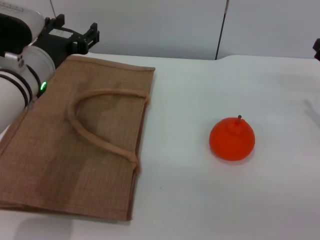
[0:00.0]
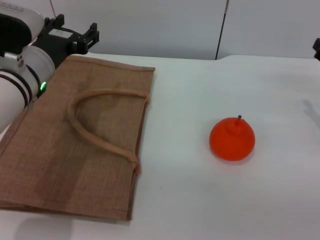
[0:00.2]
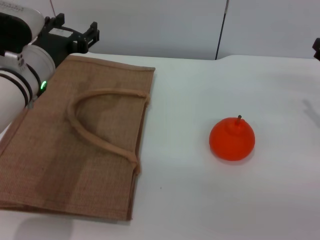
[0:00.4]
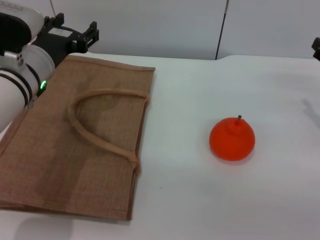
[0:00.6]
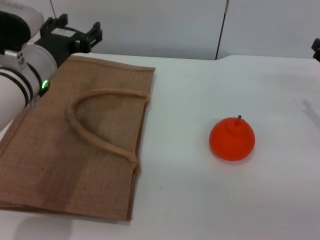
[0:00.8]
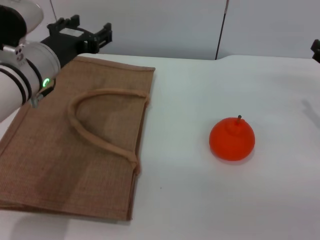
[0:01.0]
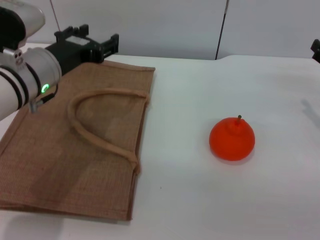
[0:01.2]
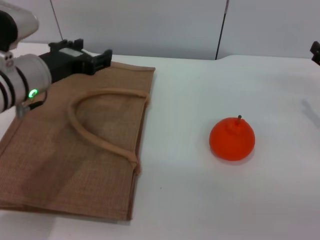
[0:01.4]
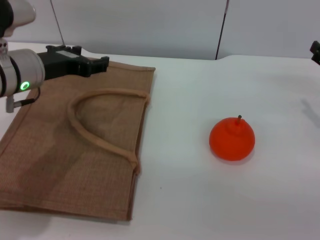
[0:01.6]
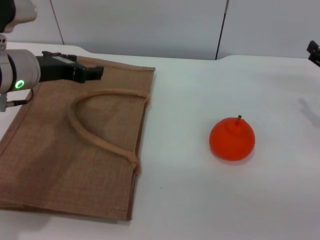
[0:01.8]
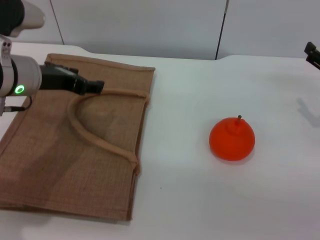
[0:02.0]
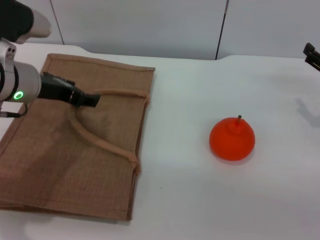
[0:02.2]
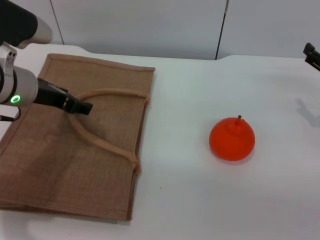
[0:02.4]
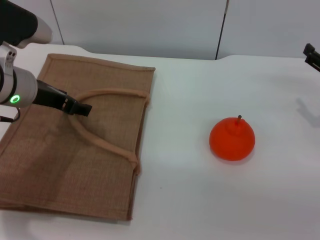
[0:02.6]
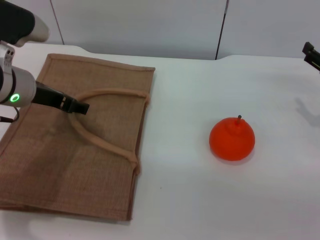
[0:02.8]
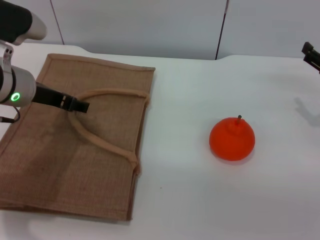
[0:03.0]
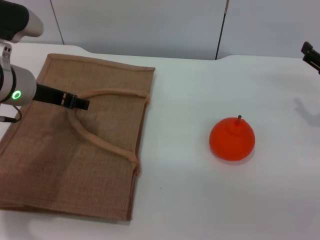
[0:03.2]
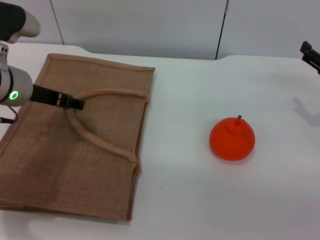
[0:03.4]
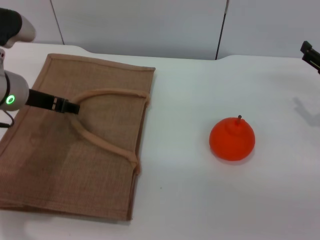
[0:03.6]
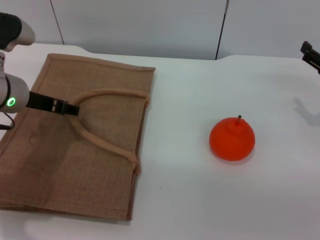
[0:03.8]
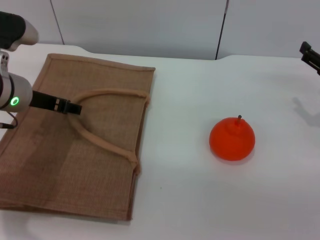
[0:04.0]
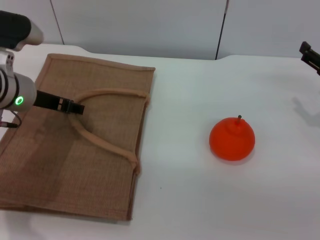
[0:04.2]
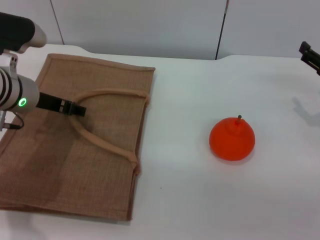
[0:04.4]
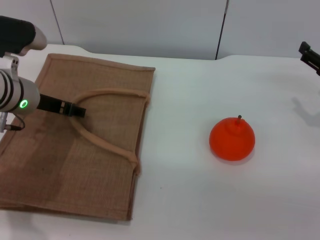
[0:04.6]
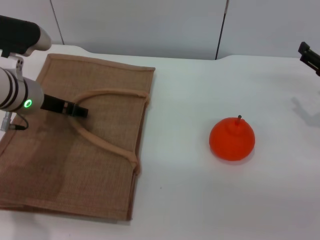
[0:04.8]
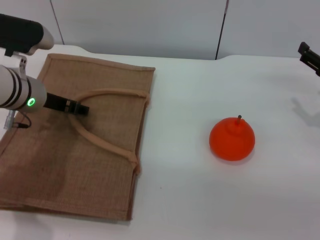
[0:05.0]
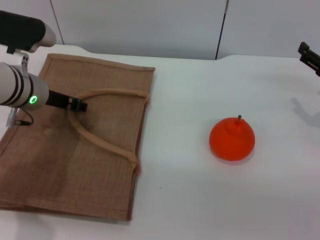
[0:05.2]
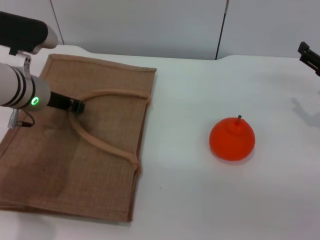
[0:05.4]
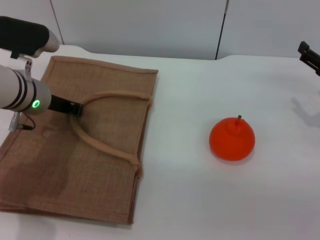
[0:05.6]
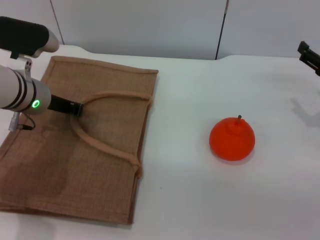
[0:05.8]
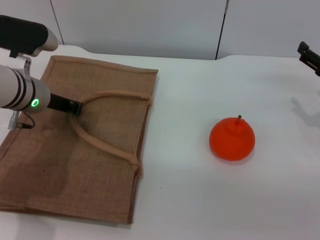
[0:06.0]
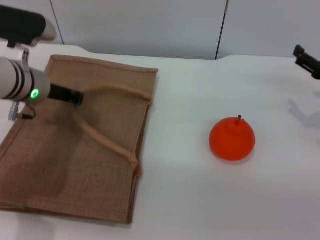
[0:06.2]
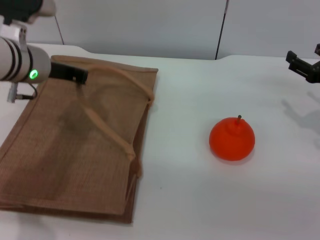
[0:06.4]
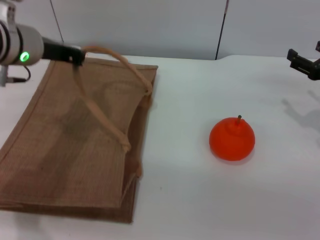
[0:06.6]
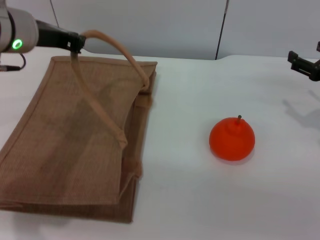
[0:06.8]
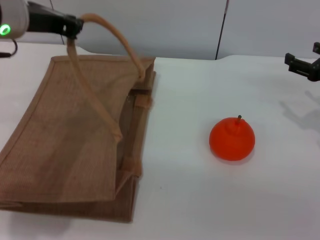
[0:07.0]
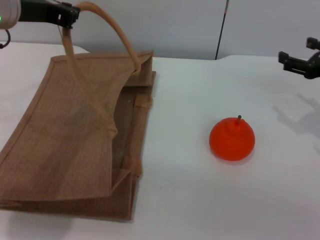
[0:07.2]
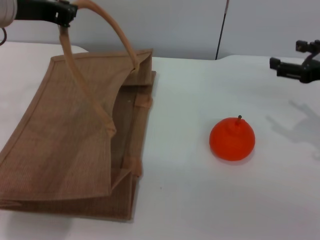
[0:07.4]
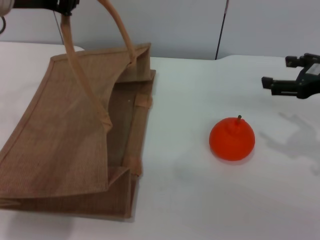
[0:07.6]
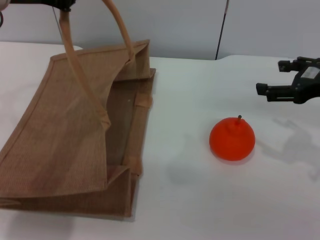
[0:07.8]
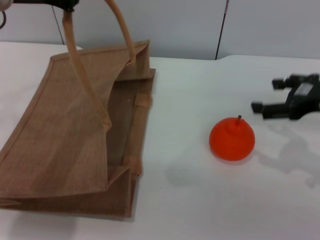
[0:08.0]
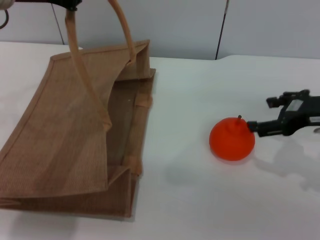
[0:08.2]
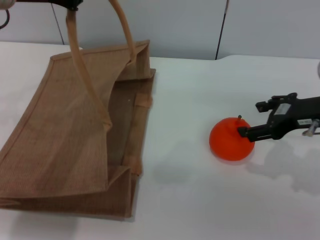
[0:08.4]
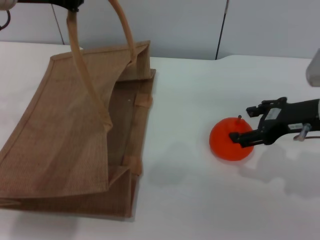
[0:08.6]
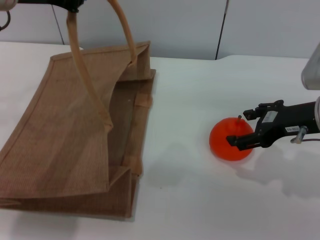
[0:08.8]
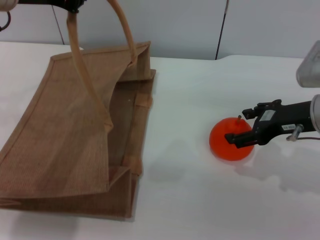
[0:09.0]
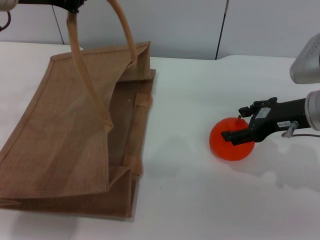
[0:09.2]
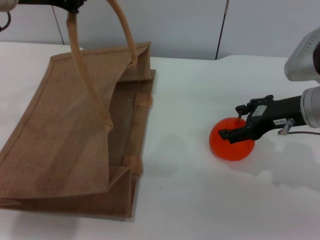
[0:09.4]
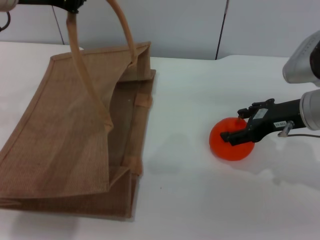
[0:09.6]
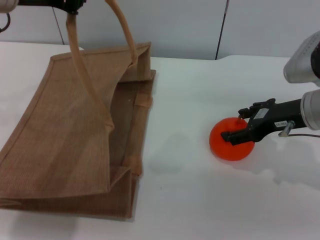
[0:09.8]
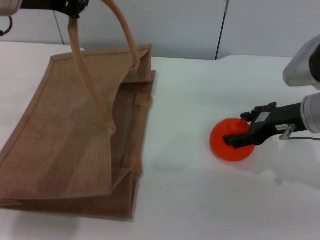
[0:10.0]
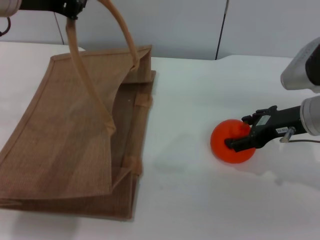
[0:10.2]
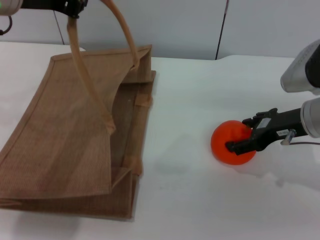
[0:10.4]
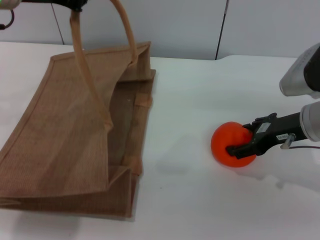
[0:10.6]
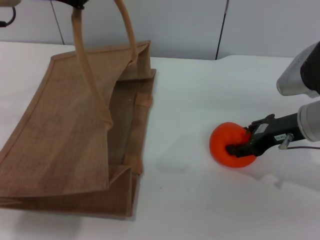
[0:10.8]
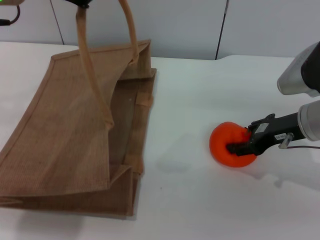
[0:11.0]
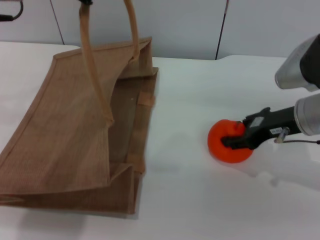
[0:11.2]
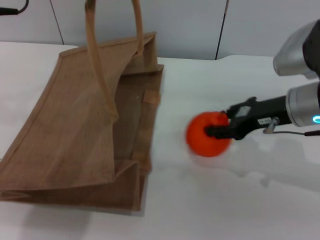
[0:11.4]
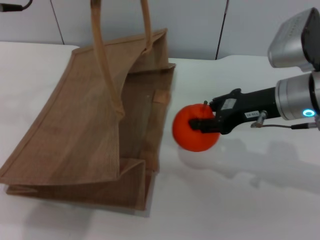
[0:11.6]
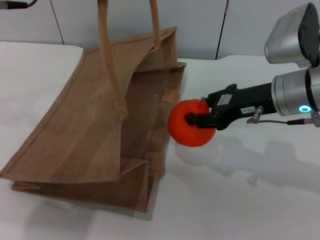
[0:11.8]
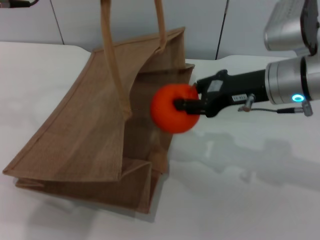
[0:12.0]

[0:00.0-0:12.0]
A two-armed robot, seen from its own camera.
Task of the whole recording: pick up the orange from the table and place it in the brown handbag.
Step, 0:00.0 to 0:07.2: Lift the woven bag with the left gripper to open it.
Step, 0:07.4 to 0:11.2: Pick up the orange with the right gripper.
0:03.0 to 0:04.4: The grippers move only a little.
0:04.4 to 0:06.0: The left gripper closes up.
0:06.0 to 0:07.6: The right gripper moves upward, roughly 10 cm; the left gripper shifts approximately 15 cm upward.
0:07.6 to 0:09.0: The right gripper travels to the left by approximately 5 cm.
0:09.0 to 0:10.4: The grippers move only a little.
0:10.4 to 0:12.0: The right gripper is displaced to the left by some 5 cm, and closes its fingers.

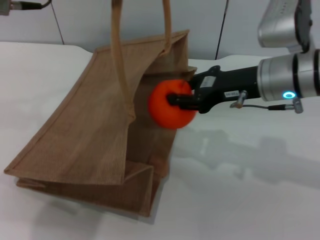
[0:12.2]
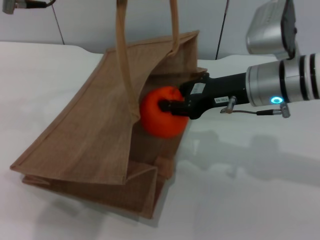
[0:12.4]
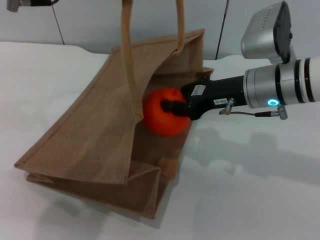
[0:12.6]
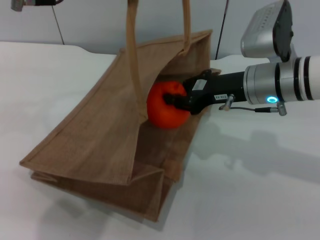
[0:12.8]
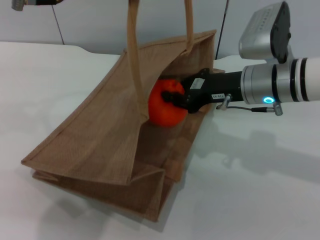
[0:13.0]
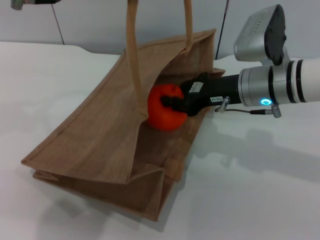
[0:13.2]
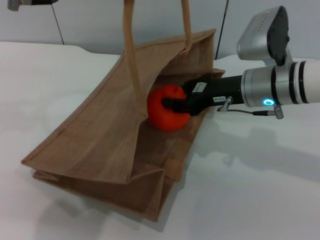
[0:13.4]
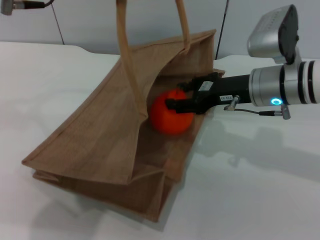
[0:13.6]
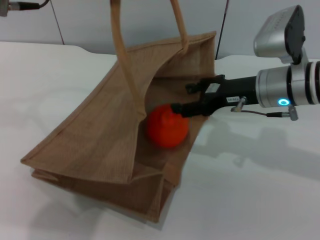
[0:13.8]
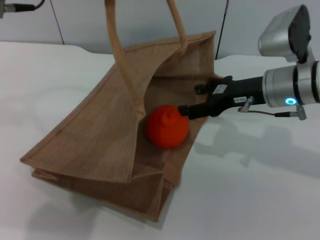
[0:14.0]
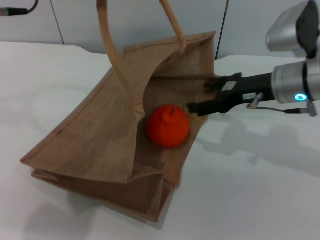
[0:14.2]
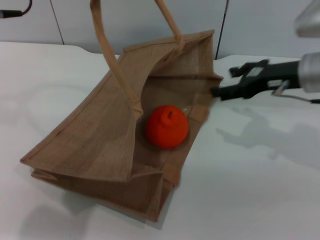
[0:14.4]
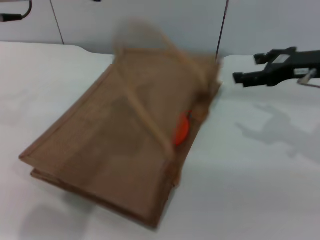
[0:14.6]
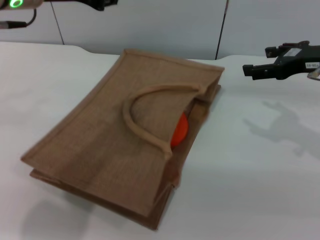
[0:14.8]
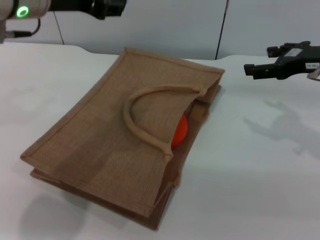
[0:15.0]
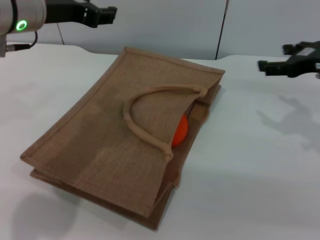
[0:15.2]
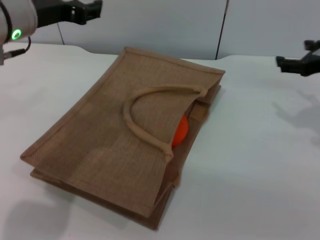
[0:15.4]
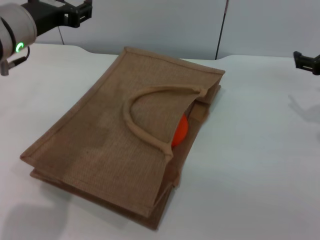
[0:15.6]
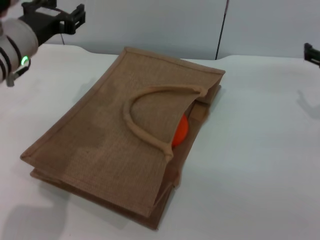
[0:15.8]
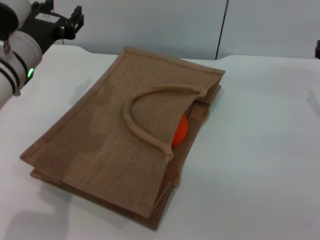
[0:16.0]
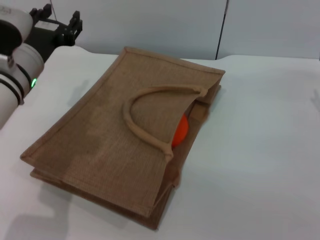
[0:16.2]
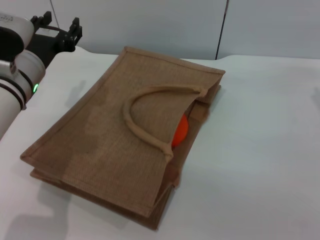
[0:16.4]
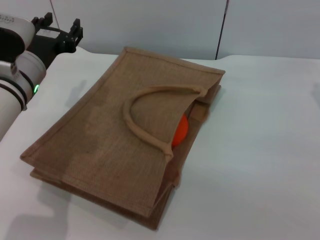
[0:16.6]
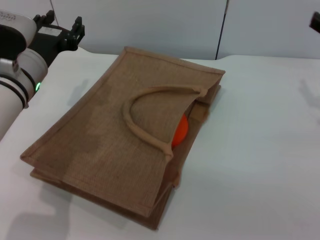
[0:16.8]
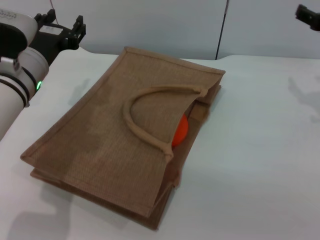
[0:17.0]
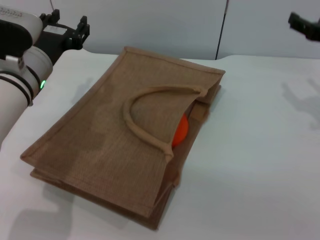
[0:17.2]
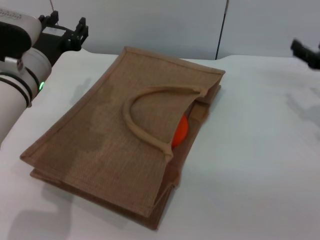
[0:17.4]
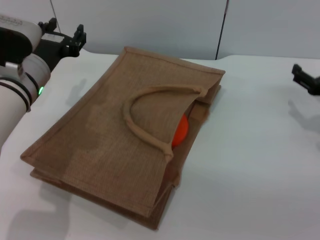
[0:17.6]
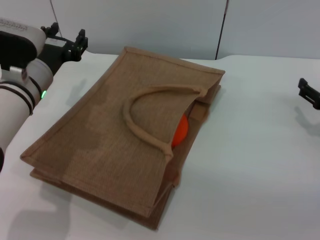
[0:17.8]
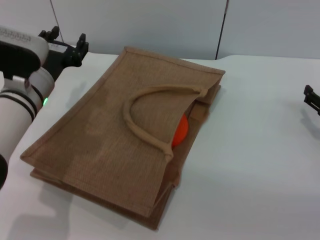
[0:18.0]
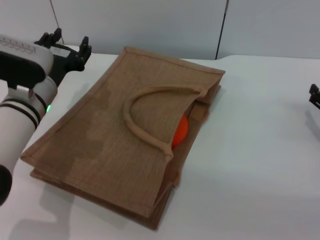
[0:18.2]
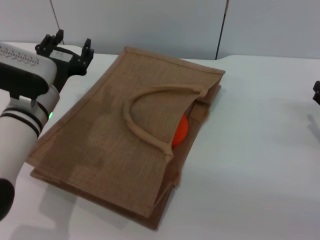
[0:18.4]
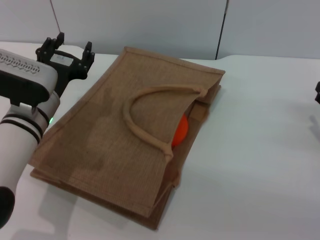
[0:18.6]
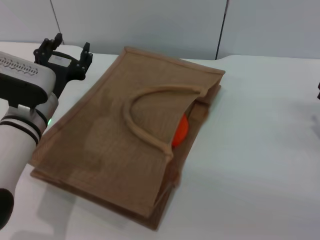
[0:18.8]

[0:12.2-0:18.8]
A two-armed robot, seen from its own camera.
Task of the whole recording: pick up the orange from the table and place it in the brown handbag.
Step, 0:12.2 to 0:14.0: Place the orange into the woven bag with the right gripper.
Step, 0:14.2 to 0:15.0: Lower the woven bag with the left gripper to close it.
0:12.2 to 0:13.8: The right gripper opens its fingers.
0:13.8 to 0:15.4: The right gripper heads to the right, covering some 10 cm; the left gripper goes roughly 10 cm downward, and opens up.
0:15.4 to 0:17.2: The left gripper goes approximately 10 cm downward.
0:17.2 to 0:18.8: The right gripper shifts about 15 cm downward and backward. The left gripper moves roughly 5 cm.

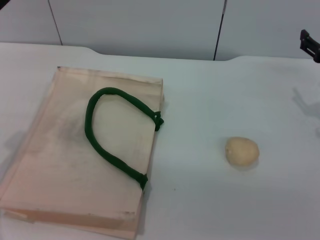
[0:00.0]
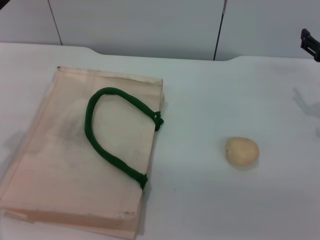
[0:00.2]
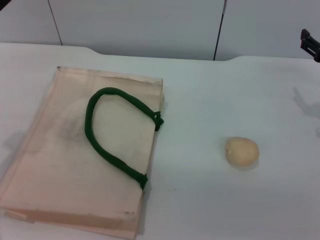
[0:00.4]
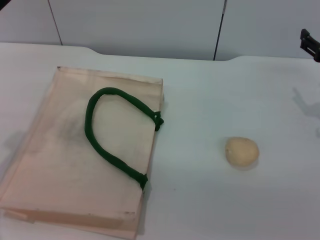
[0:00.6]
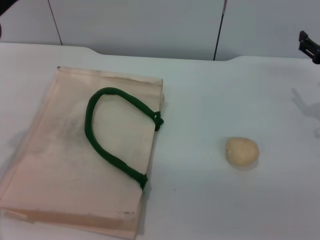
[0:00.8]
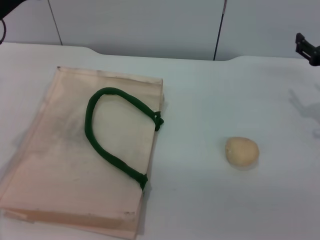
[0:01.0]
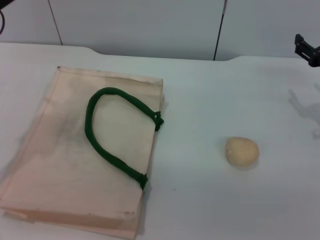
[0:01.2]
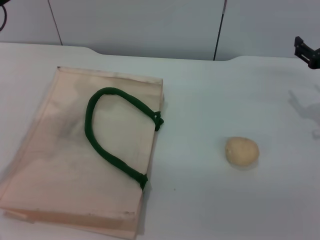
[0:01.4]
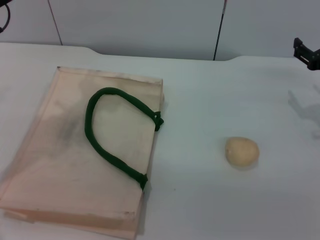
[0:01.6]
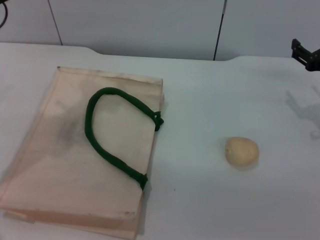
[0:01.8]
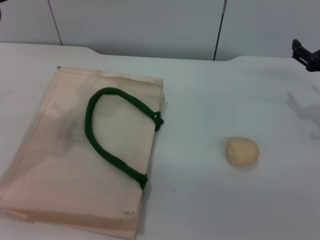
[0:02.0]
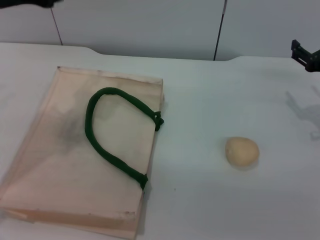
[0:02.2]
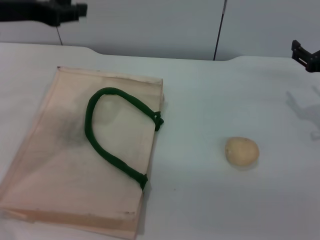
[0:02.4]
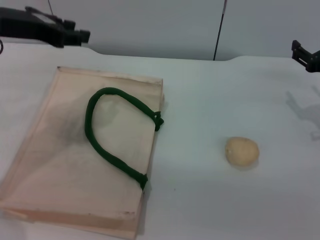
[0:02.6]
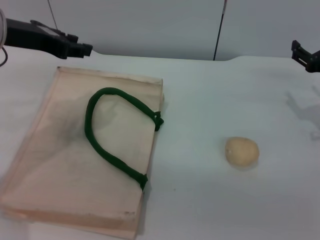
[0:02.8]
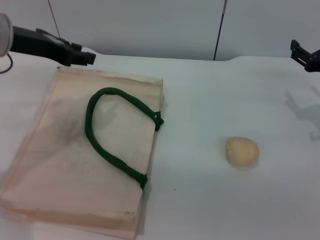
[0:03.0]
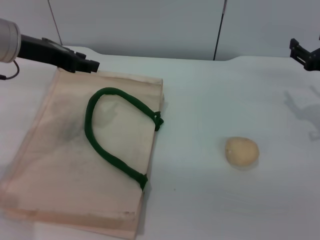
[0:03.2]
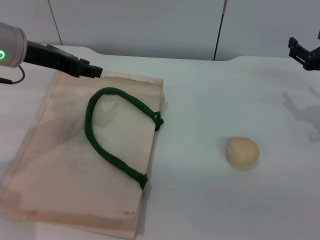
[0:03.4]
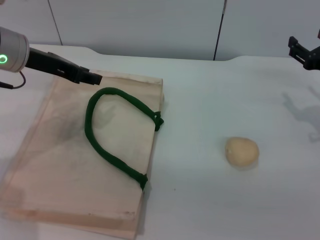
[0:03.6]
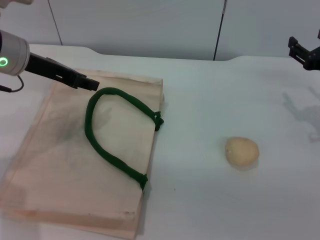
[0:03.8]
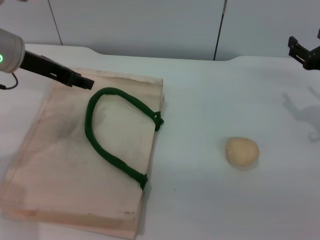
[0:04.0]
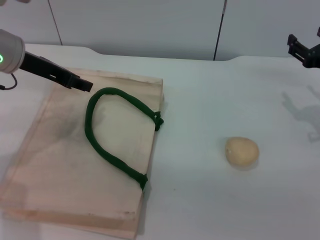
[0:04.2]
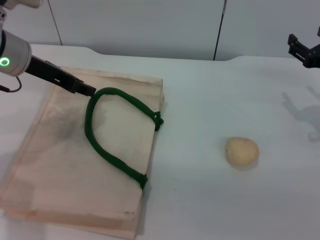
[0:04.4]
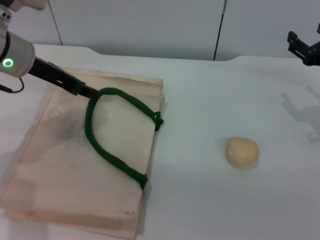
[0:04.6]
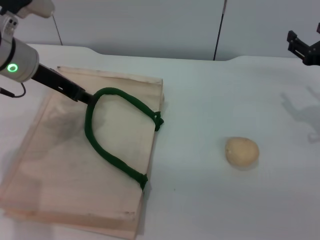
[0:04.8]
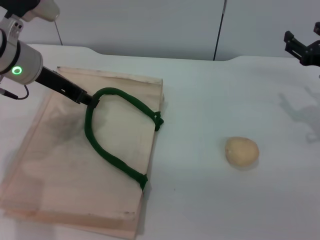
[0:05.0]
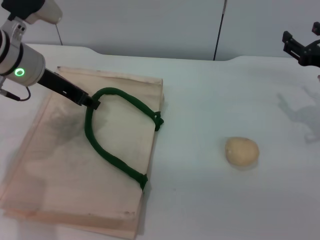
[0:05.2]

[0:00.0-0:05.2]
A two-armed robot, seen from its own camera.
Task of the whole recording: pick up the egg yolk pastry from the table and place it in the white handbag.
0:00.0 to 0:01.8: The left gripper moves upward, roughly 5 cm.
0:01.8 to 0:03.4: The left gripper shifts by approximately 5 cm.
0:03.4 to 0:05.2: The grippers make only small movements.
